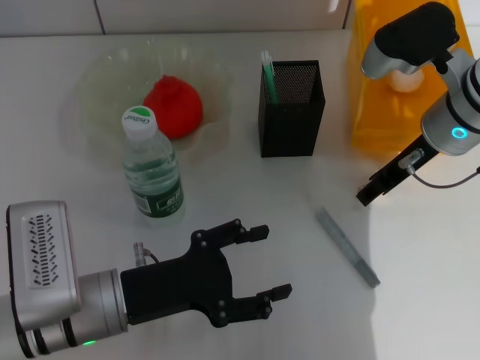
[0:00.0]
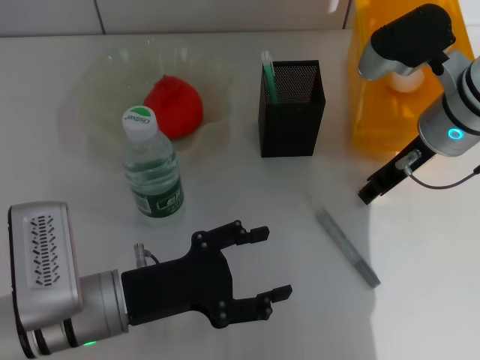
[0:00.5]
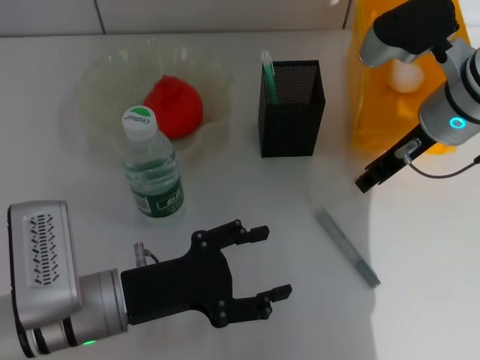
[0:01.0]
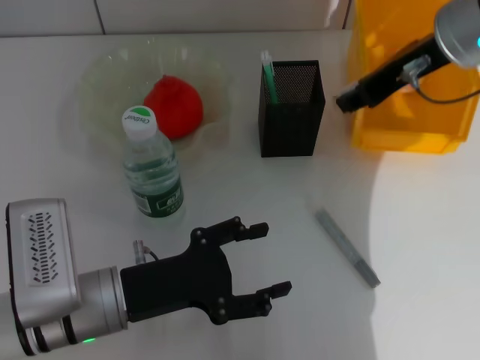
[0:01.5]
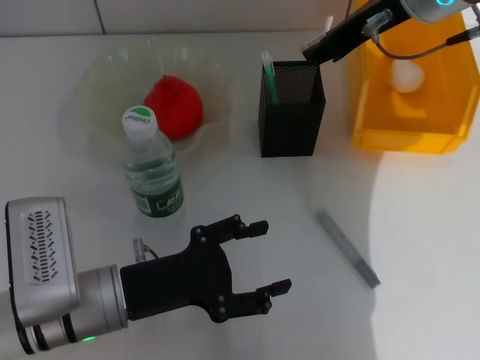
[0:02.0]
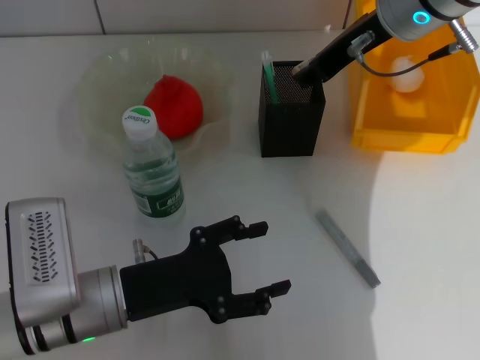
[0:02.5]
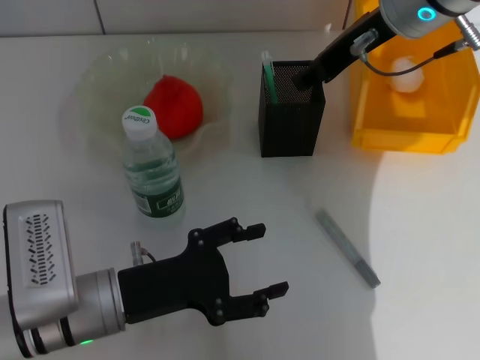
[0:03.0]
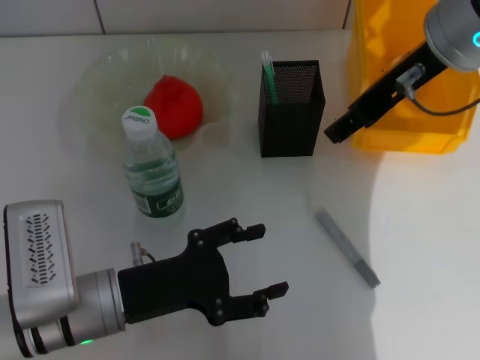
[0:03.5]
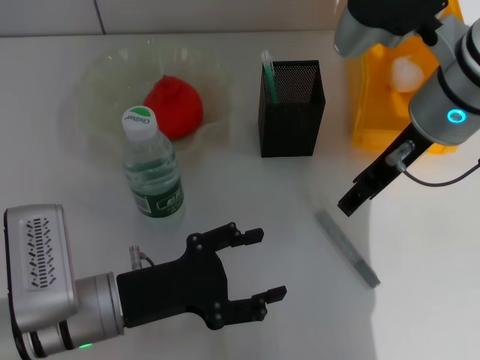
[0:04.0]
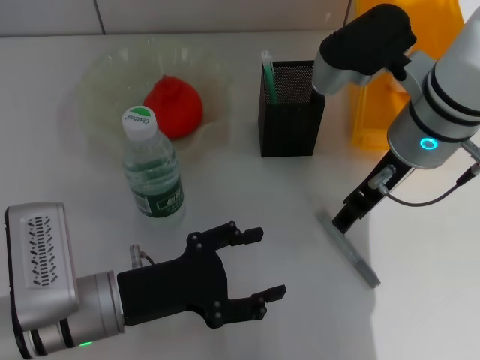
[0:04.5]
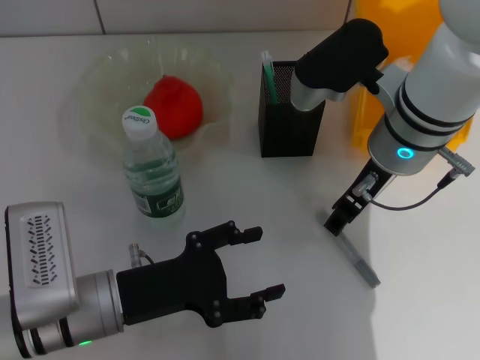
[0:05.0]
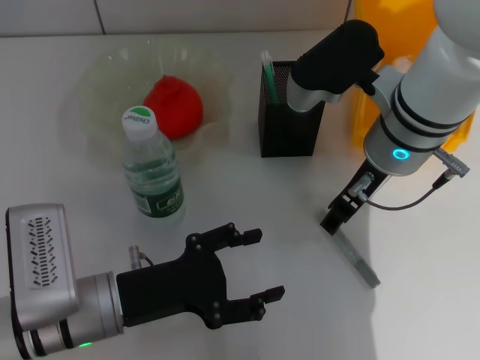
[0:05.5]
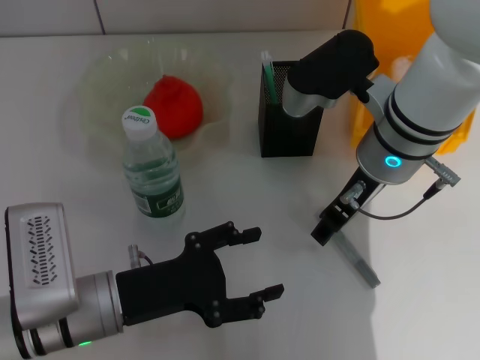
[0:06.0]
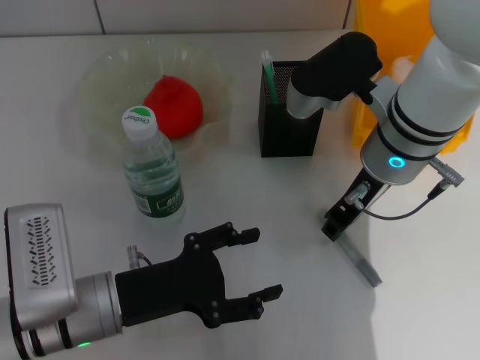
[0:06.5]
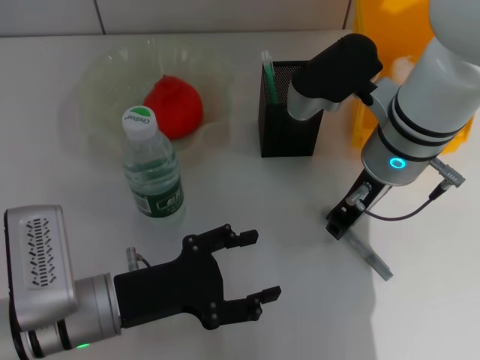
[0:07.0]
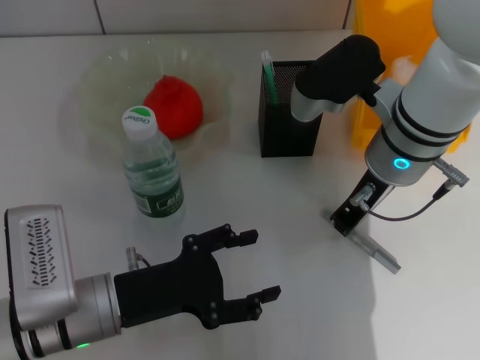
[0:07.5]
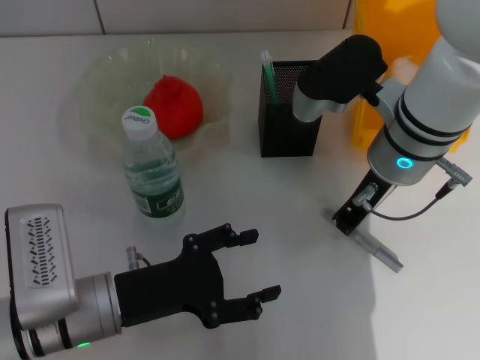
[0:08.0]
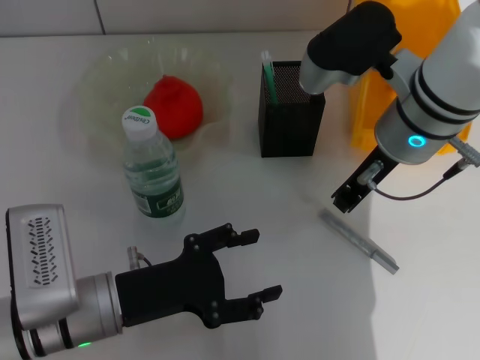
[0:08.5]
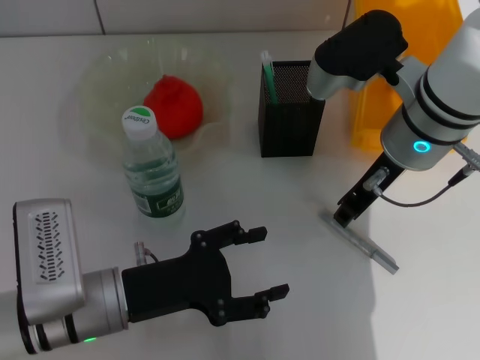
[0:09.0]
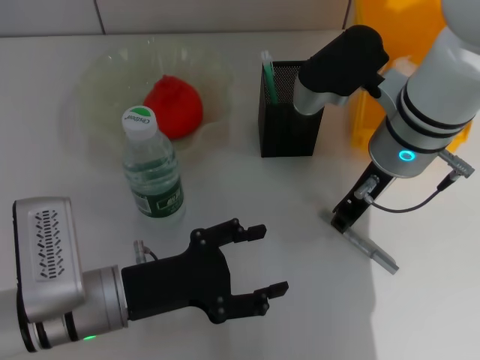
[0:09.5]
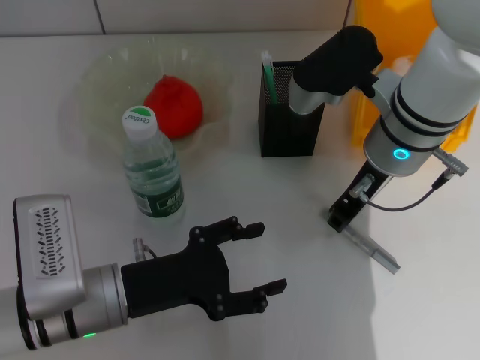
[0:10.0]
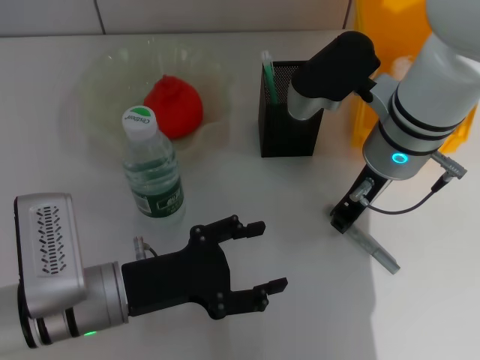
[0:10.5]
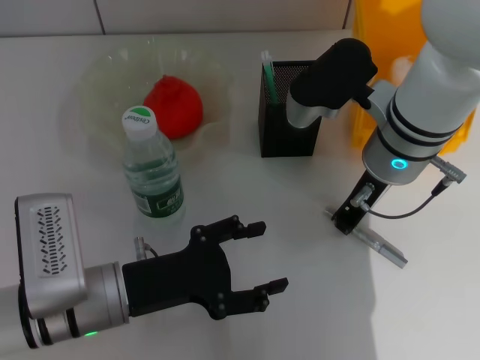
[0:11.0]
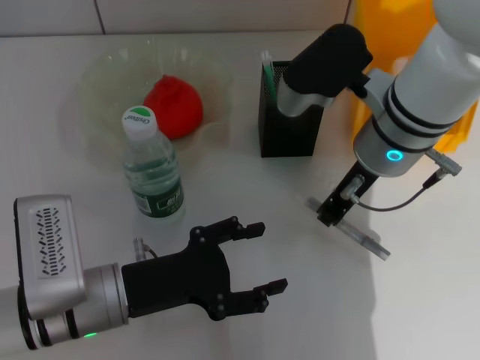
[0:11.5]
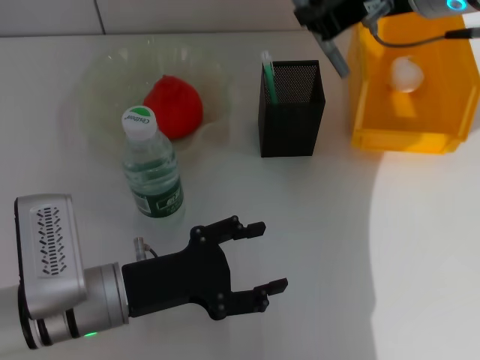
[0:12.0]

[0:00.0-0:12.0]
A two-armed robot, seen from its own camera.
Step, 0:01.0 to 0:02.5: Put the eraser into the pen holder with the right hand.
Step, 0:03.0 to 0:10.5: Grab the gray glue with the right hand.
0:00.0 to 0:02.0: The right gripper moves upward, about 10 cm.
0:02.0 to 0:04.0: The right gripper is displaced backward and downward by roughly 5 cm, and opens.
0:04.0 to 0:06.0: The right gripper is displaced downward by roughly 5 cm.
0:06.0 to 0:08.0: The right gripper closes.
0:08.0 to 0:10.0: The grippers move only a little.
0:10.0 to 0:12.0: The right gripper travels upward by roughly 10 cm.

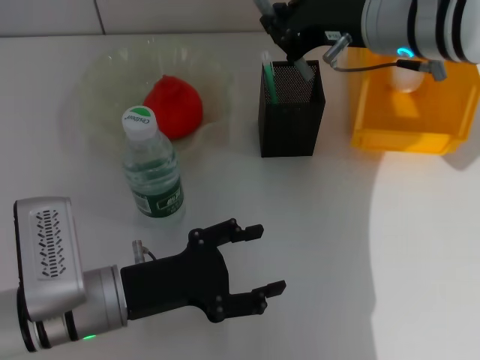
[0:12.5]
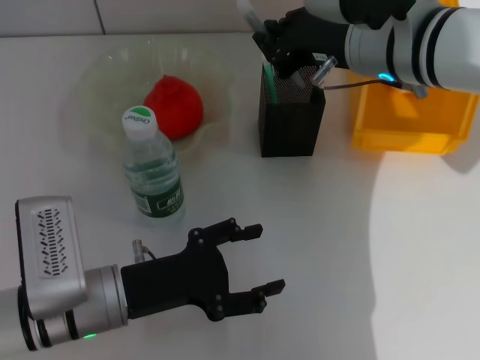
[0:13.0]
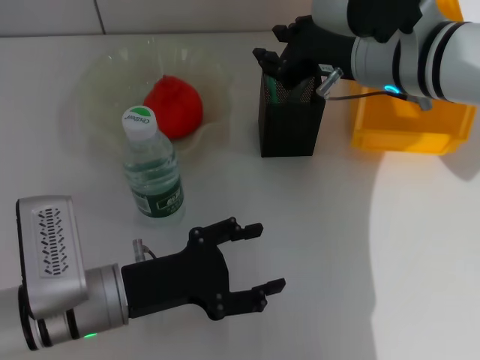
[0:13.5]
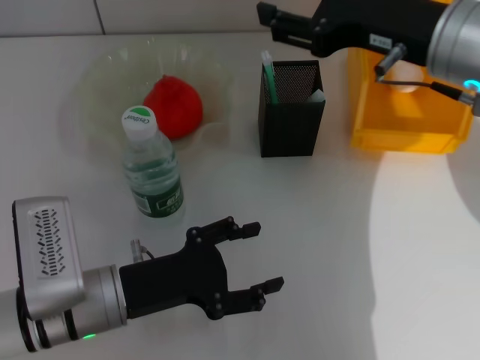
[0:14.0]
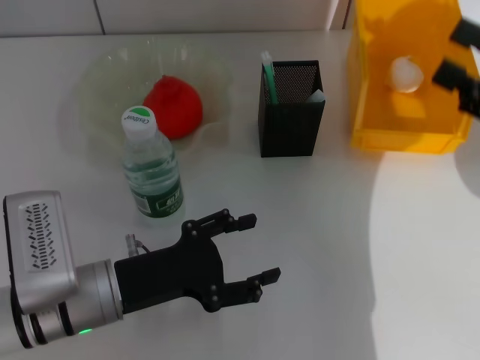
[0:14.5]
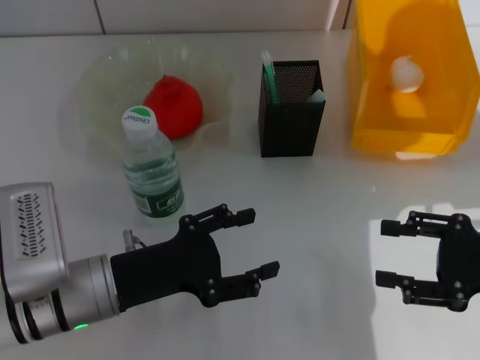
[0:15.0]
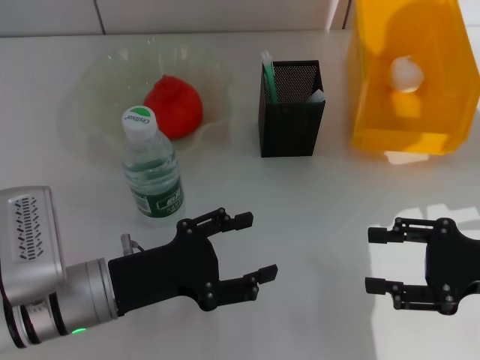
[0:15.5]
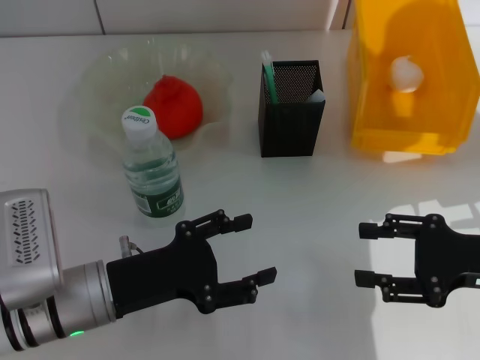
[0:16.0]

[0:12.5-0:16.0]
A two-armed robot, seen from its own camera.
0:12.5 to 0:14.5: The right gripper is displaced to the right and backward by approximately 20 cm, and opens up.
0:14.5 to 0:16.0: The right gripper shifts approximately 10 cm downward.

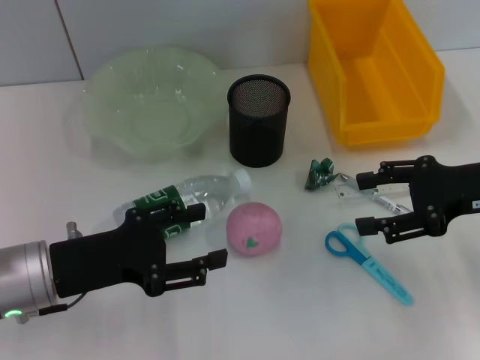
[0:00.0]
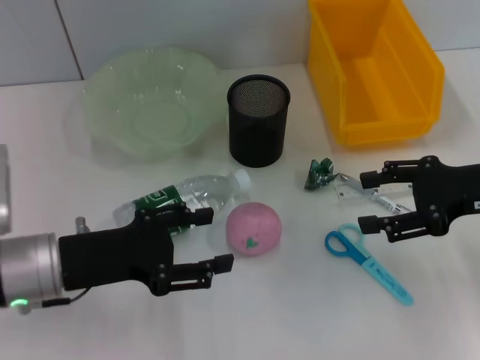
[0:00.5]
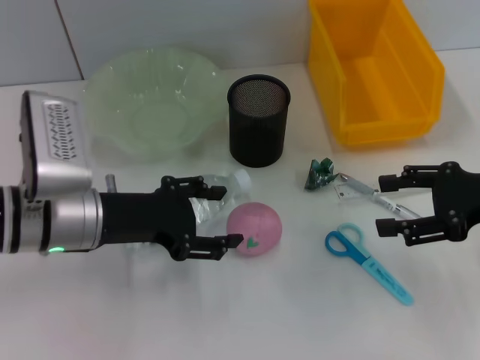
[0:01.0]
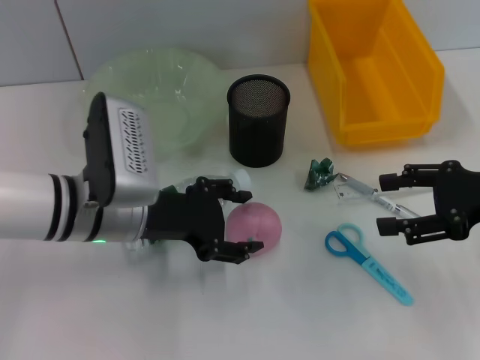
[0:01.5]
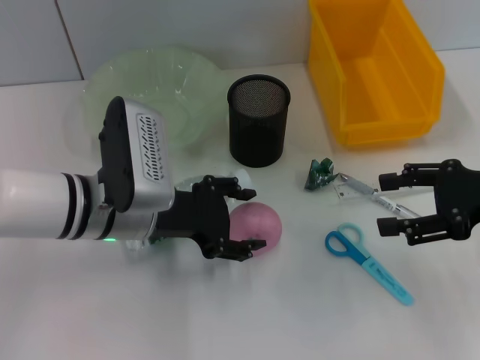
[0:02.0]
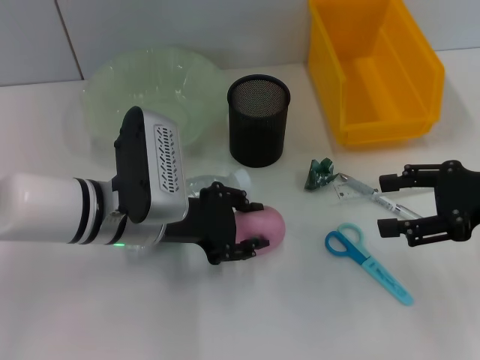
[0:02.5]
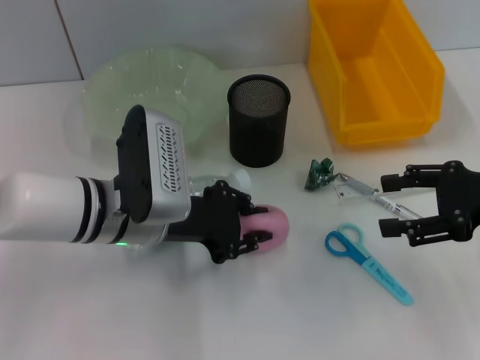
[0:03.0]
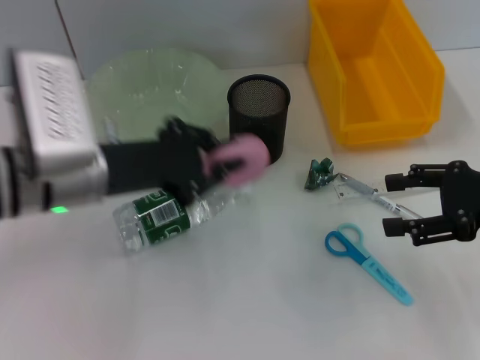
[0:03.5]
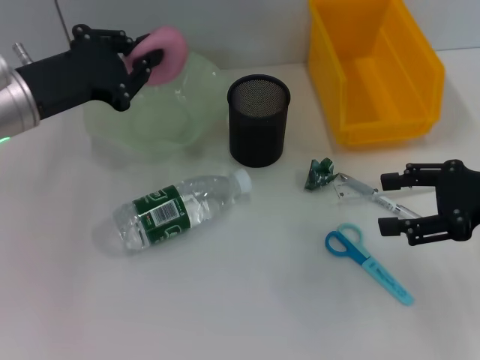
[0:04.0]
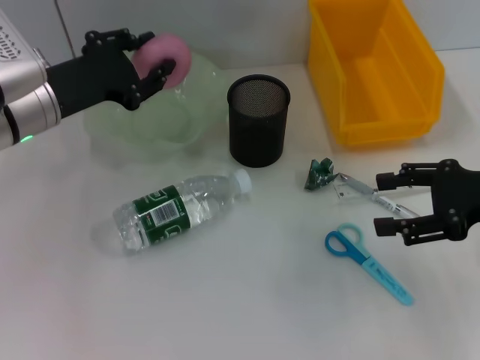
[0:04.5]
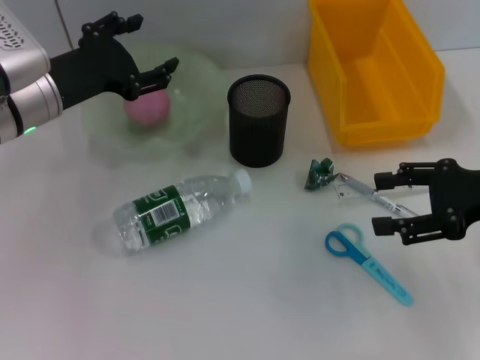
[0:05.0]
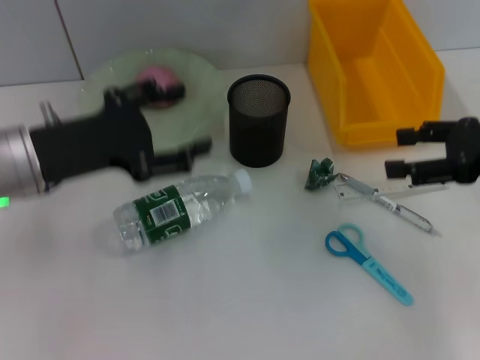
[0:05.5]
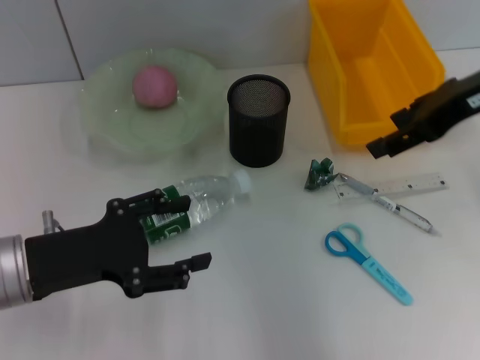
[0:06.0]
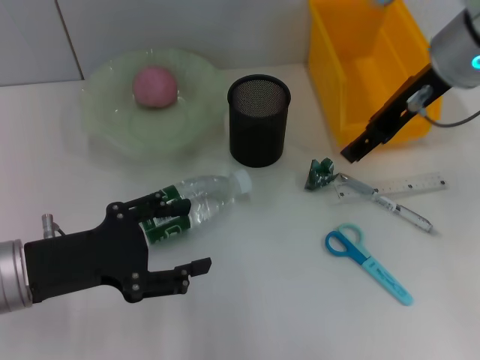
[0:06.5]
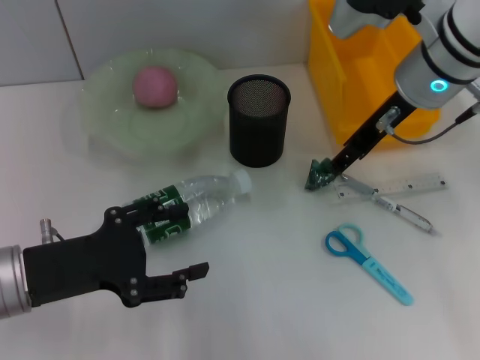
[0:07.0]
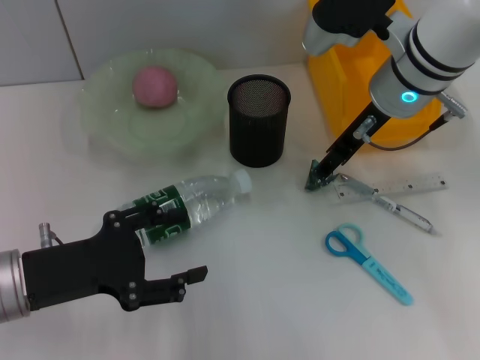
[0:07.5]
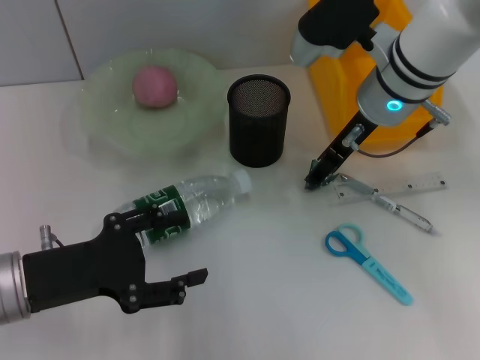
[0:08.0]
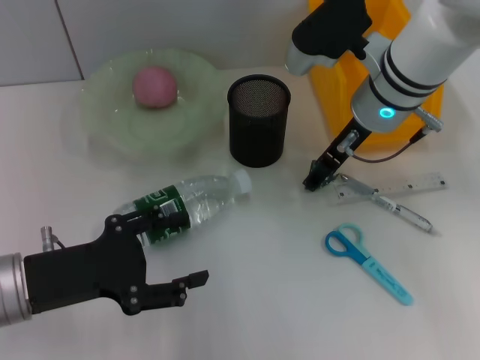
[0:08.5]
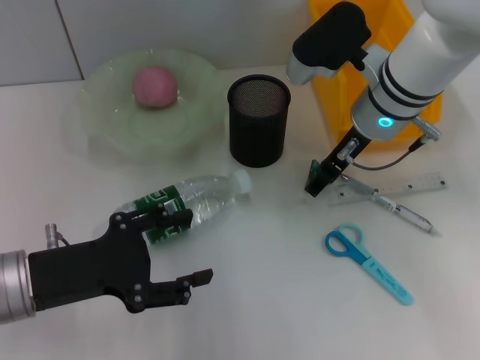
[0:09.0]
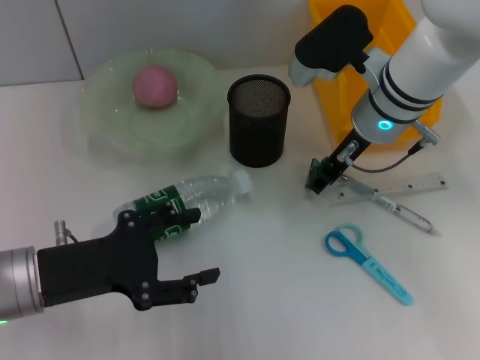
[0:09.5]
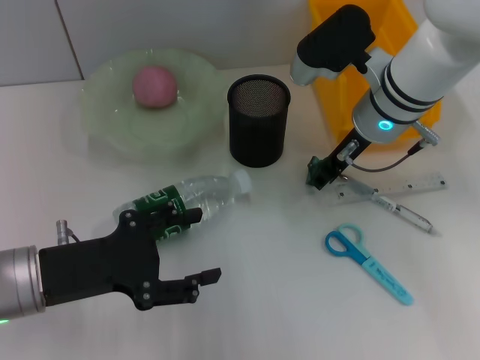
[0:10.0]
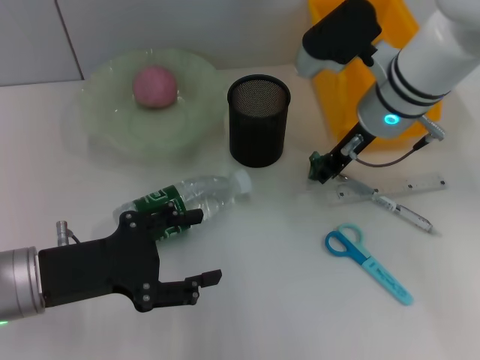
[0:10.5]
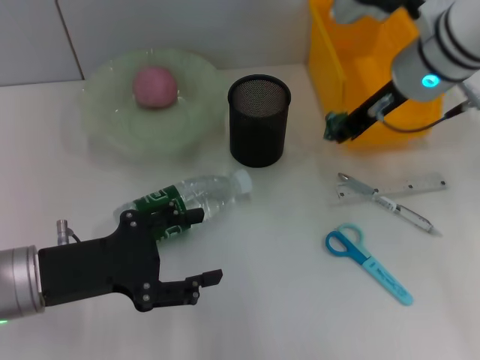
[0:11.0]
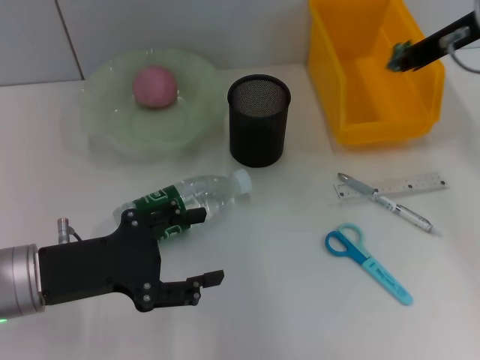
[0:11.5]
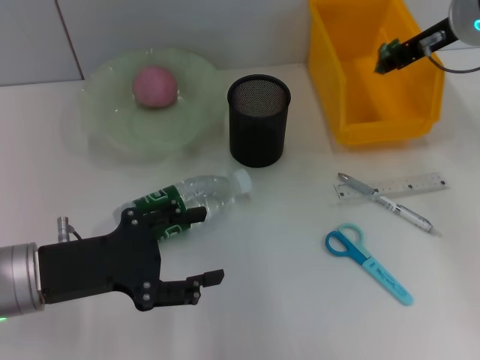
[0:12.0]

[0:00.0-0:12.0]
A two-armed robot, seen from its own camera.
Step, 0:00.0 to 0:02.0: Grab the peach with the left hand.
Step, 0:02.5 to 0:04.5: Place the peach into the fruit bowl with the left hand.
Step, 0:05.5 to 0:10.0: Grab the plastic with the right hand.
0:00.0 to 0:02.0: The left gripper travels to the right and forward by about 10 cm.
0:02.0 to 0:04.0: The left gripper is displaced to the left and upward by some 10 cm, and closes its fingers.
0:04.0 to 0:06.0: The right gripper travels upward, forward and to the left by some 15 cm. The left gripper heads backward and downward, covering approximately 15 cm, and opens up.
0:06.0 to 0:08.0: The right gripper travels to the left, downward and forward by roughly 15 cm.
0:08.0 to 0:10.0: The right gripper closes.
0:10.0 to 0:12.0: The right gripper is displaced to the right and upward by roughly 10 cm.
